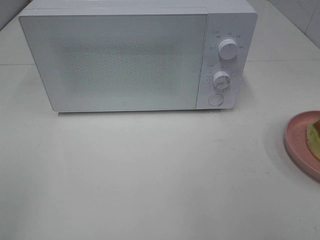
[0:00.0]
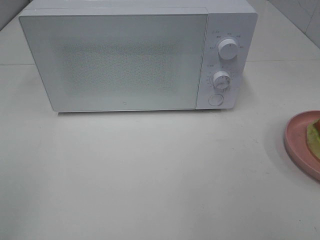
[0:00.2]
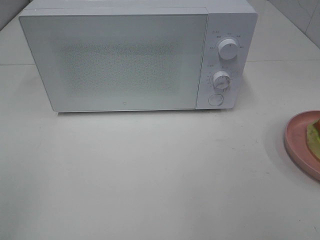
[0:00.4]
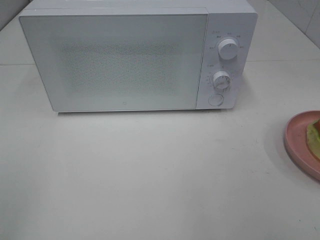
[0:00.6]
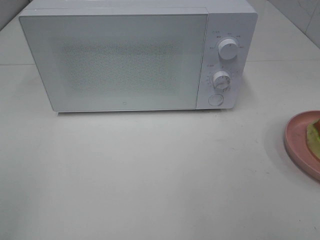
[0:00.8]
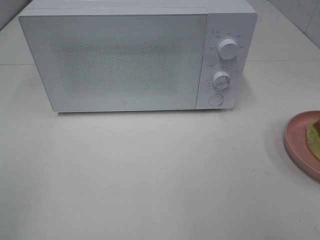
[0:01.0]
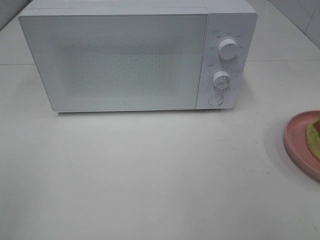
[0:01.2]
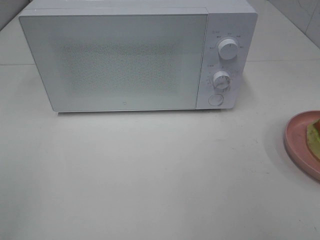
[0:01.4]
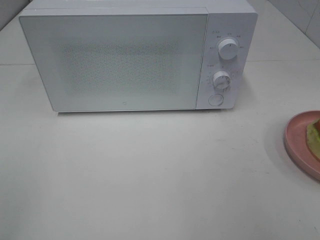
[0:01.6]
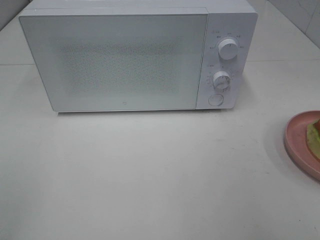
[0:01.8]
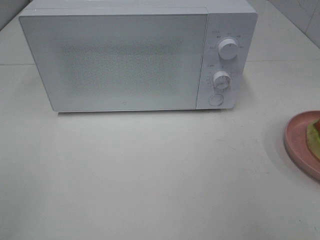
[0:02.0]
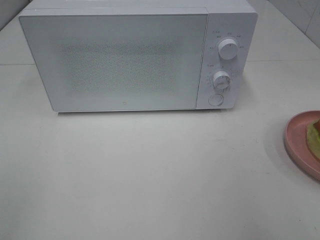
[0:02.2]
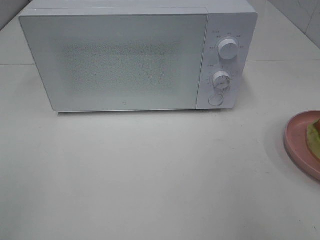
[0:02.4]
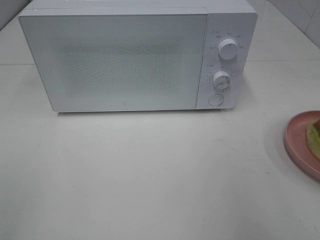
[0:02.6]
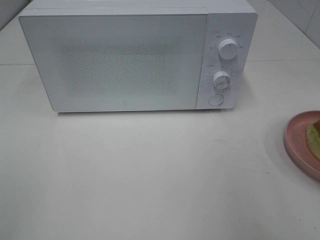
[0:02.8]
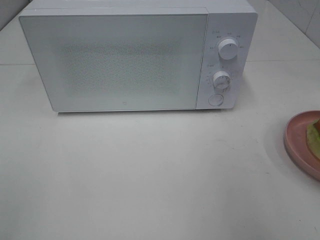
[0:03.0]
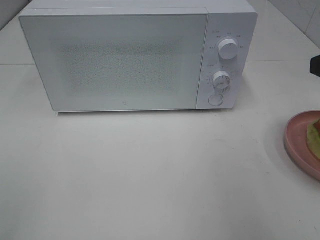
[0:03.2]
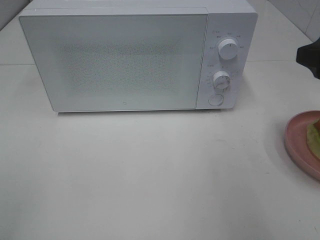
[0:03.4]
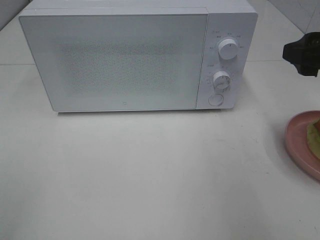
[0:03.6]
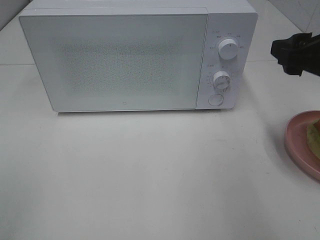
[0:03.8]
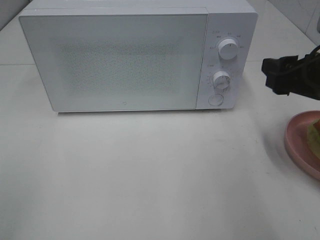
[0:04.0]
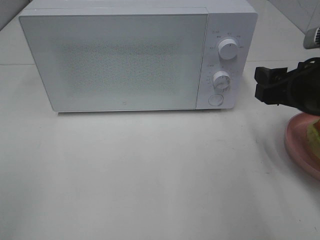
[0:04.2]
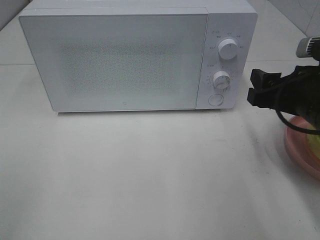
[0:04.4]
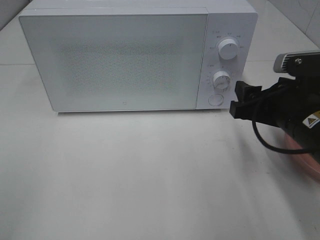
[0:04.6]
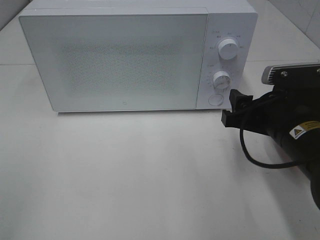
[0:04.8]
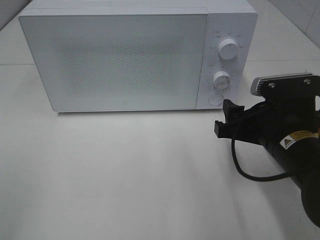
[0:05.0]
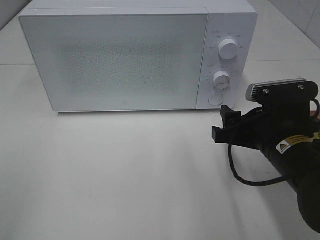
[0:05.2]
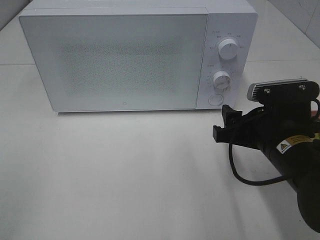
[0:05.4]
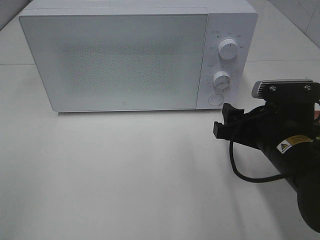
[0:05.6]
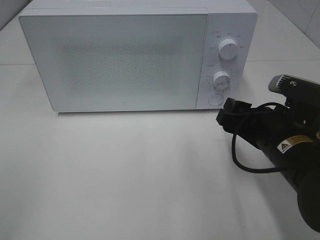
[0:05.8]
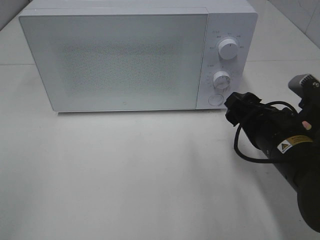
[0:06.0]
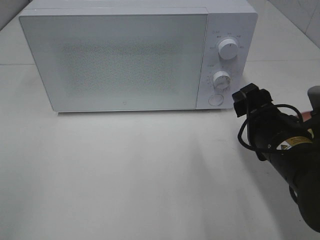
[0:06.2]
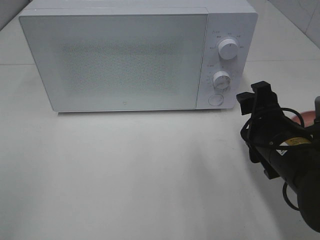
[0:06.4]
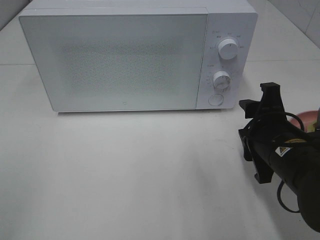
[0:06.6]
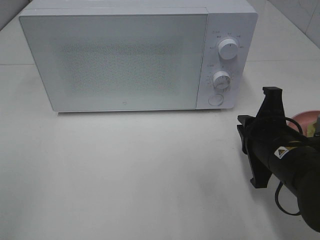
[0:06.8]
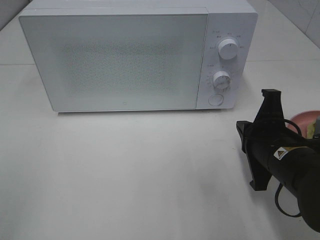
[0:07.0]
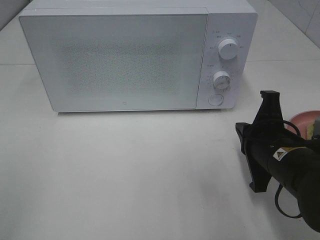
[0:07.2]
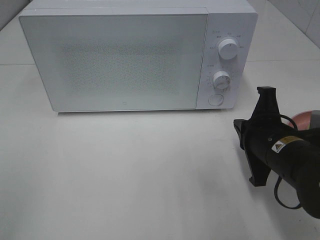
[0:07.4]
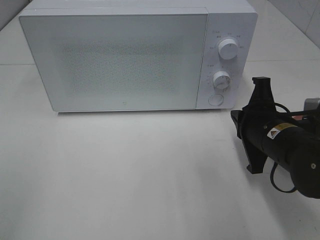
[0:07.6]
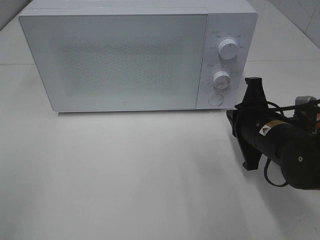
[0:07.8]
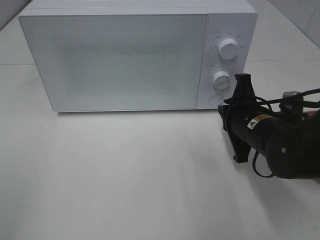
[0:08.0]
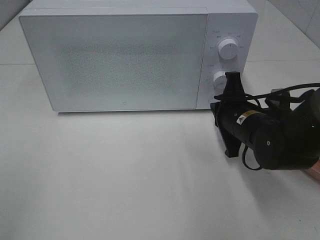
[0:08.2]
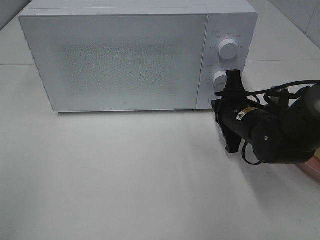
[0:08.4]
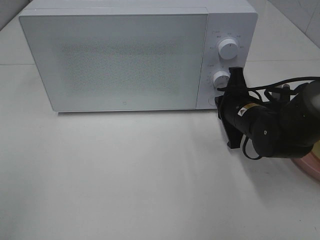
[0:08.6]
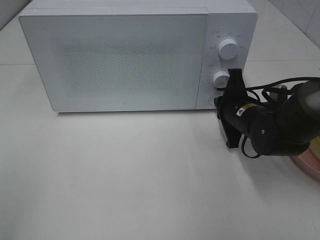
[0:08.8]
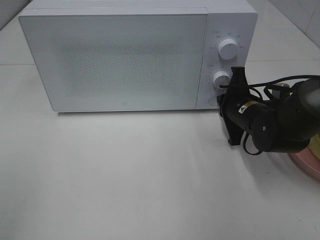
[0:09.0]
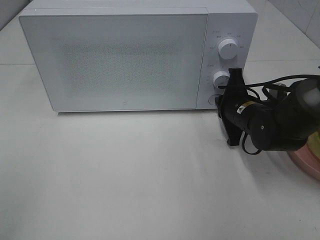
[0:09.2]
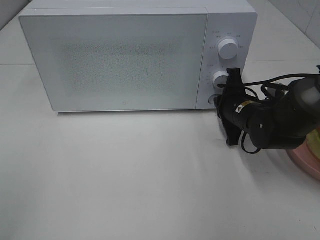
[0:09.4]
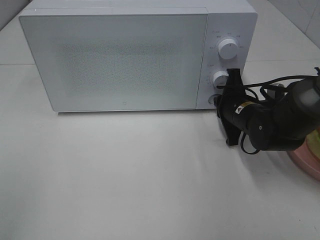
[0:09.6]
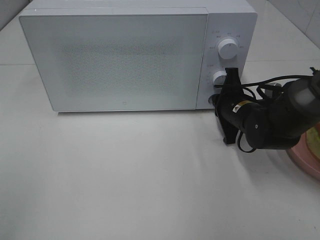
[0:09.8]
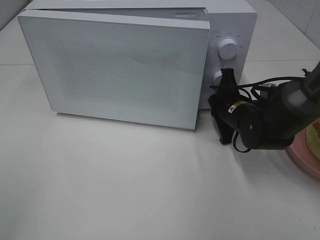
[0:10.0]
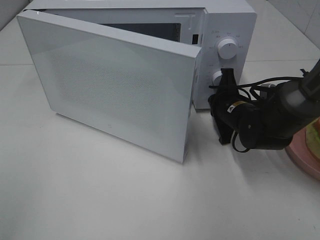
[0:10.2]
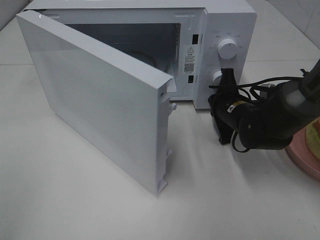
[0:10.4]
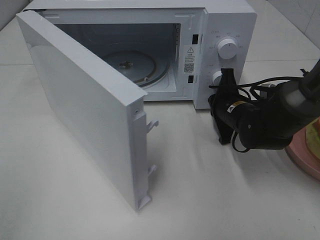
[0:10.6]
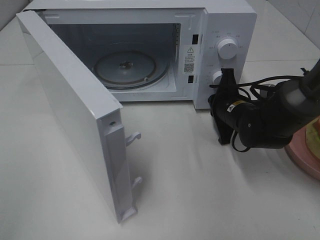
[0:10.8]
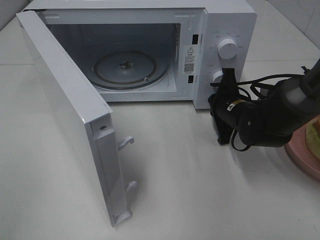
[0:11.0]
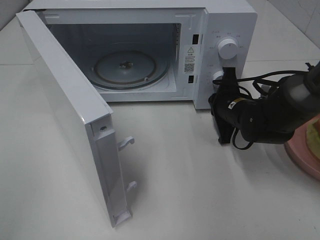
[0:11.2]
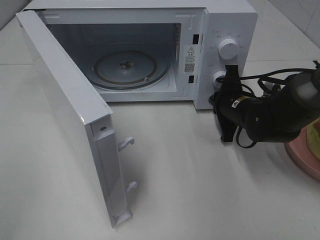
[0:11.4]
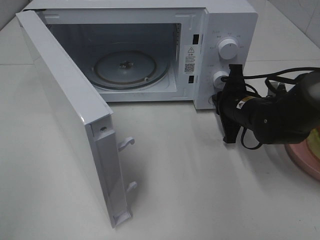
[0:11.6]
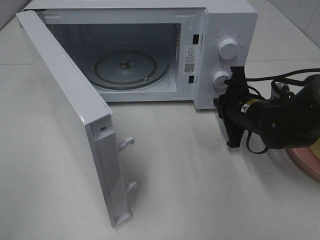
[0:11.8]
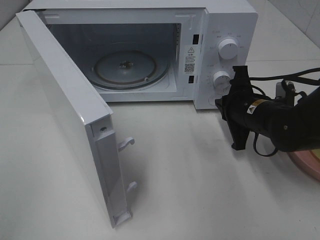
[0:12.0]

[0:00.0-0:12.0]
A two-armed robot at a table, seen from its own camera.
Task of the whole recording: Heat Sandwich.
Step, 0:00.0 to 0:11.8: Right hand: press the switch.
0:03.0 to 0:04.4: The right gripper moves downward and forward, roughly 10 cm.
0:04.4 to 0:06.0: The right gripper heads downward, covering roughly 5 cm.
0:06.0 to 0:07.6: The right gripper closes its fingers.
0:07.6 to 0:09.0: The right gripper moves forward, about 10 cm.
0:10.4 to 0:12.0: The right gripper ends up some 5 cm from where it was.

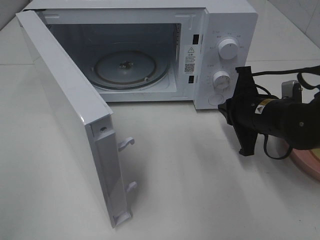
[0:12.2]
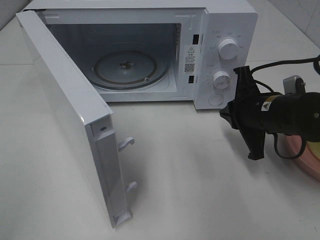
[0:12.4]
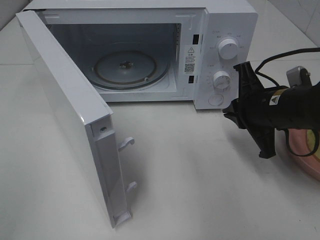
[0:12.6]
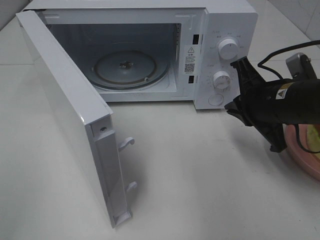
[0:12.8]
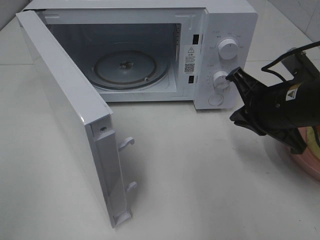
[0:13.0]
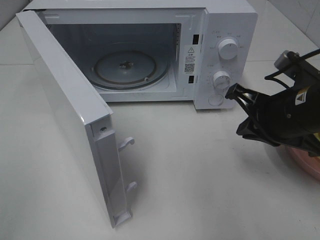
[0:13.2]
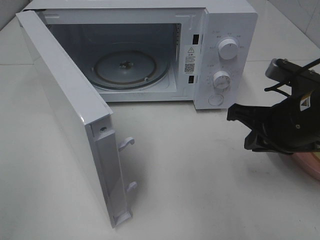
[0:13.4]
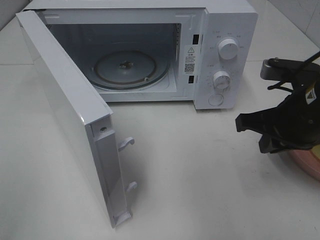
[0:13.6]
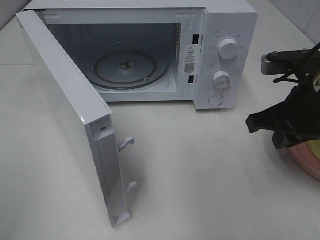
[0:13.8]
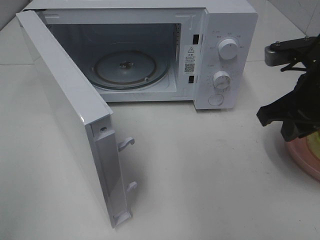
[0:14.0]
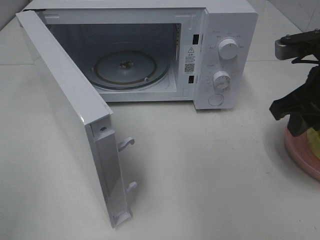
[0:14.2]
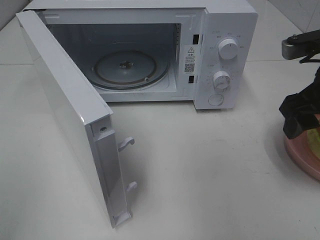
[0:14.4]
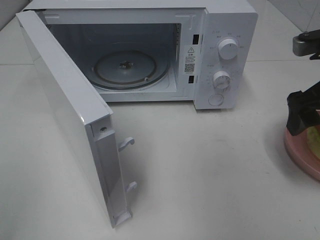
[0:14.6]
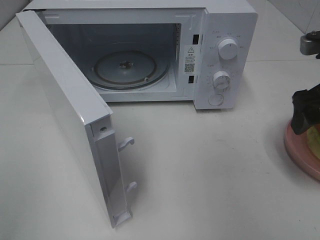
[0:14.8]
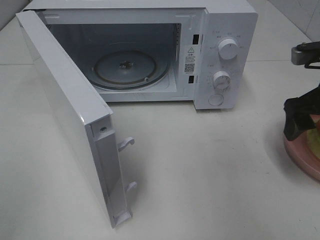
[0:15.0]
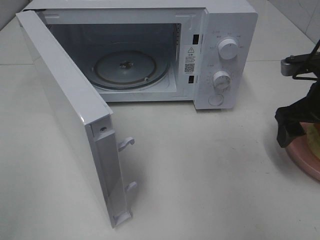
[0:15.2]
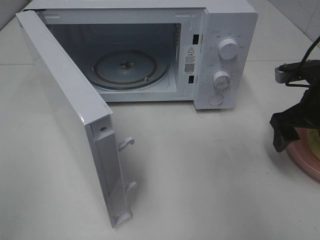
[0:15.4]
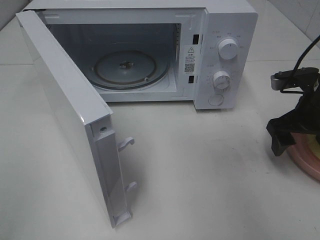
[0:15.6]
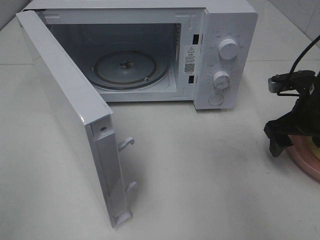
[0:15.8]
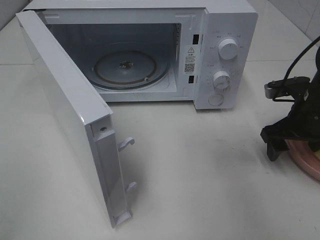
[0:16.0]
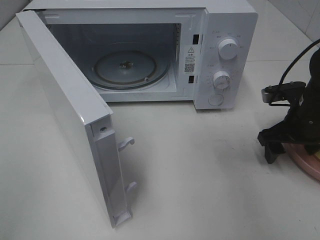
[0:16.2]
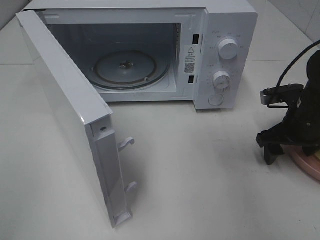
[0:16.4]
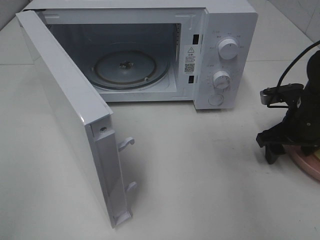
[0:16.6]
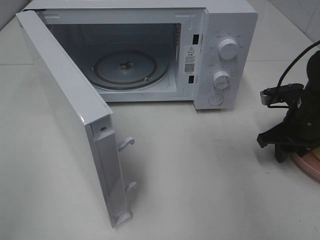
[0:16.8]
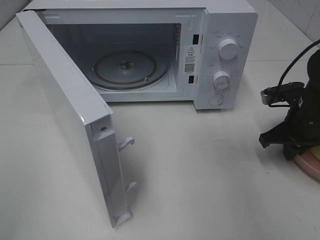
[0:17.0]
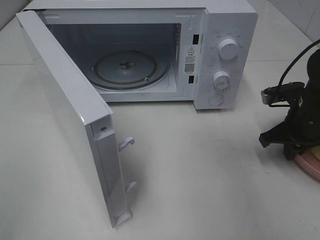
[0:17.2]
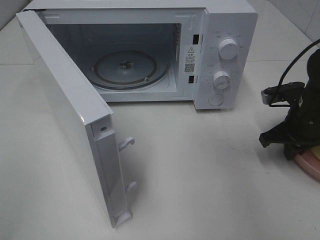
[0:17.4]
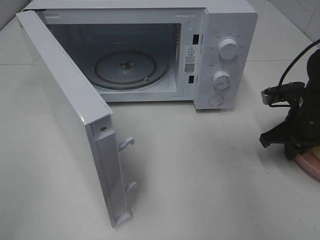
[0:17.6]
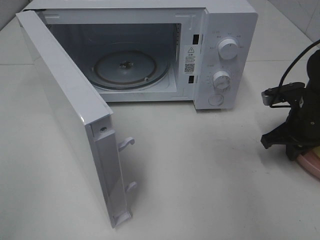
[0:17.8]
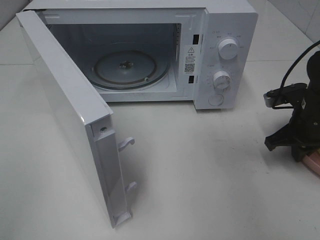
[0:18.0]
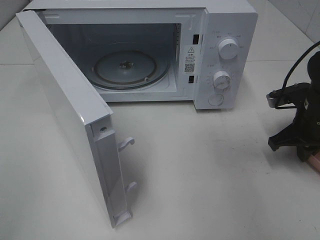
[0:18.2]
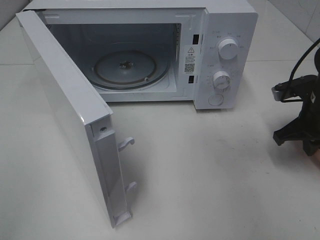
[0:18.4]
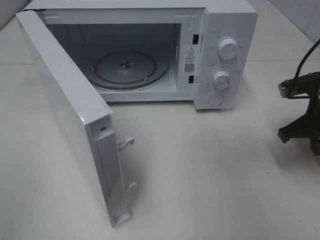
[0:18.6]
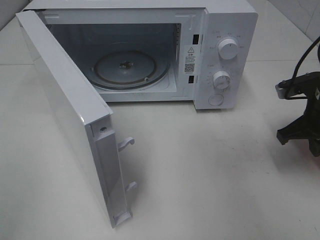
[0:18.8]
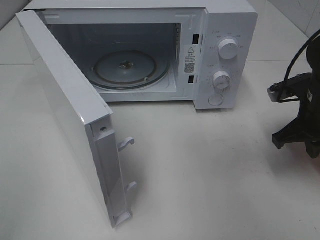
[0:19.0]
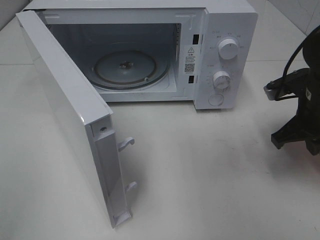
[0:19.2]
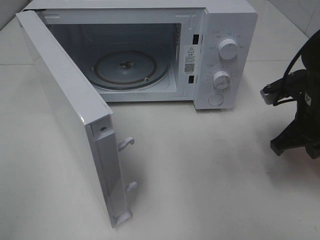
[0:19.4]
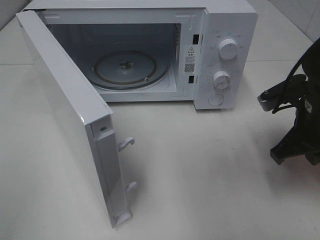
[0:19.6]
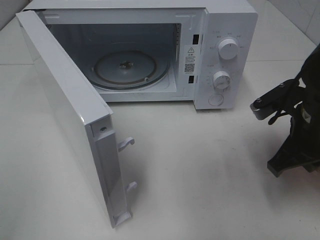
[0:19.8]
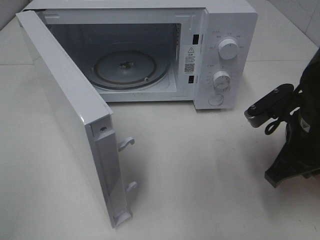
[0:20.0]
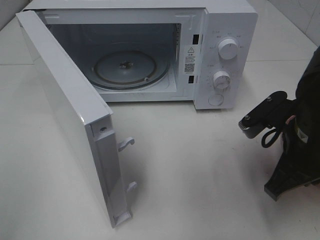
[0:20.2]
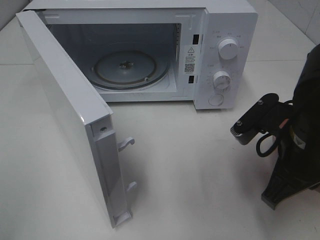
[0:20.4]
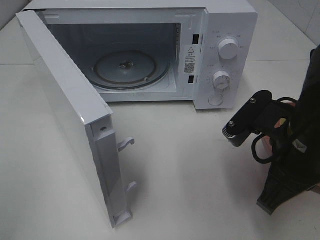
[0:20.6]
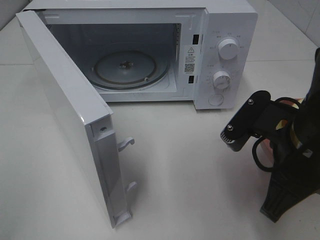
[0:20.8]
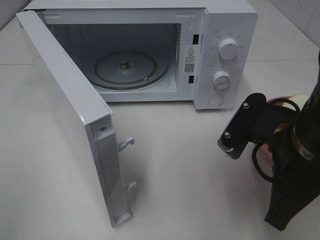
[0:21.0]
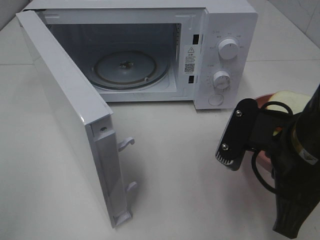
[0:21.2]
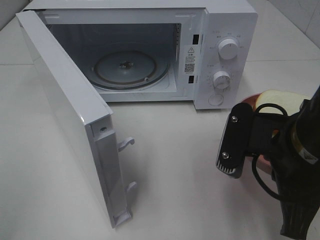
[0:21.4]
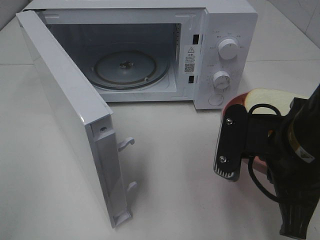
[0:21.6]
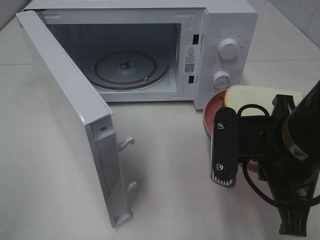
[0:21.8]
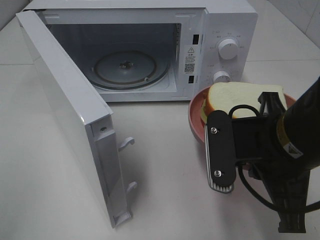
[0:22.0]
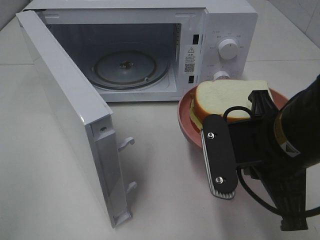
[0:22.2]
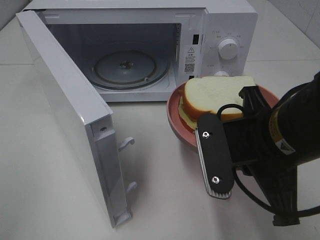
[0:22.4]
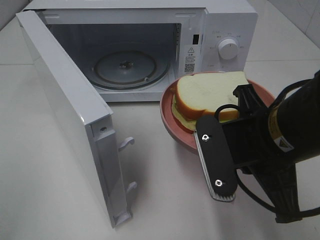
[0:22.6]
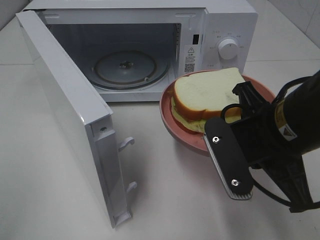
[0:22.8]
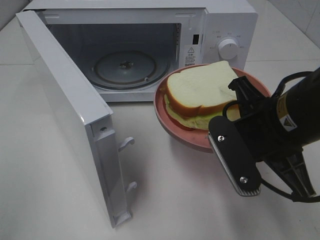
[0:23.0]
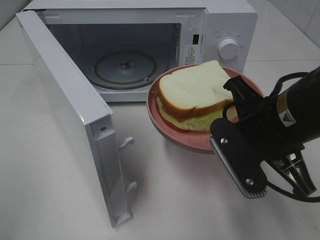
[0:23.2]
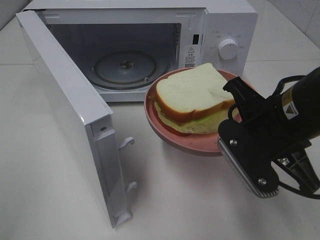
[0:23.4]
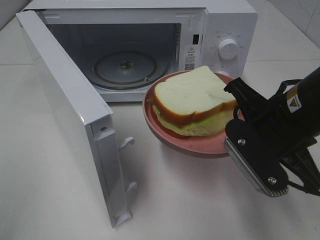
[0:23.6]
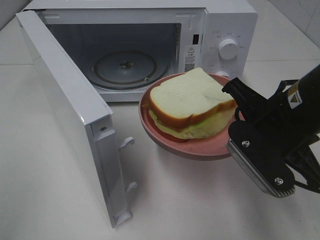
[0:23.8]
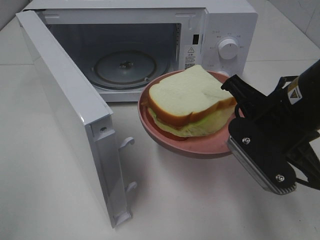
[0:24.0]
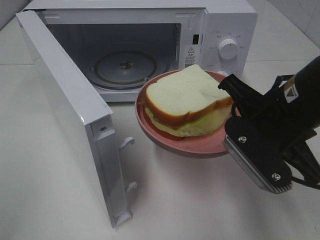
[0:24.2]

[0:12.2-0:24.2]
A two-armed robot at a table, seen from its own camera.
Task of the whole recording: Heat Sandwich.
Step, 0:12.2 to 0:18.2: Right hand: grab the plate with the sandwich.
0:12.2 to 0:13.8: The right gripper goes approximately 10 cm upward and backward.
0:13.8 to 0:15.2: The right gripper goes about 10 cm to the right and forward, and opens its fingers.
0:15.2 to 0:16.6: The right gripper moves downward, about 10 cm.
0:16.6 to 0:18.2: The right gripper closes its fingers.
0:18.2 to 0:19.8: The right gripper goes approximately 10 cm backward, to the left and upward.
0:19.8 to 0:21.2: The right gripper is displaced backward and to the left by approximately 10 cm.
